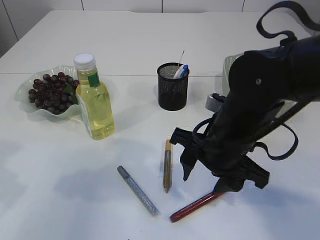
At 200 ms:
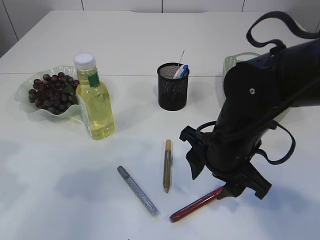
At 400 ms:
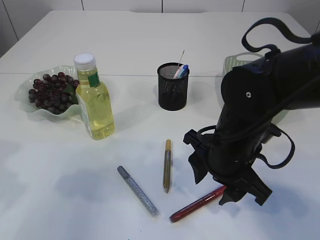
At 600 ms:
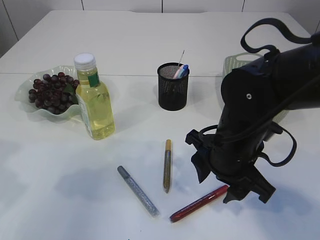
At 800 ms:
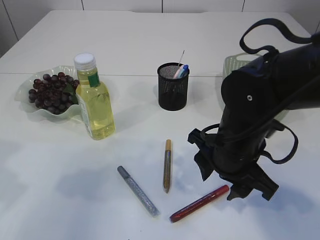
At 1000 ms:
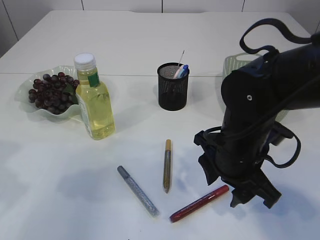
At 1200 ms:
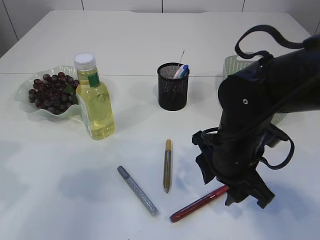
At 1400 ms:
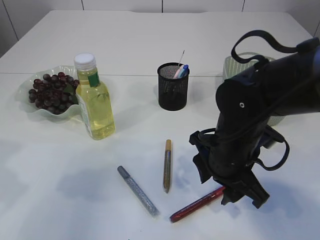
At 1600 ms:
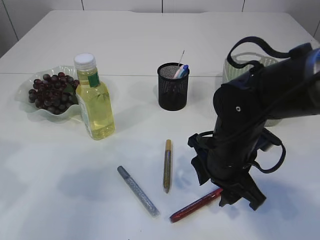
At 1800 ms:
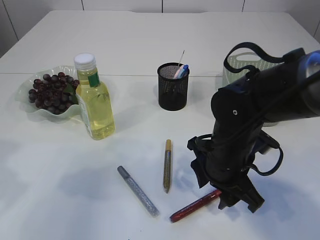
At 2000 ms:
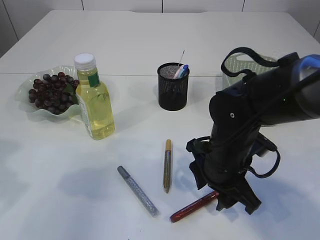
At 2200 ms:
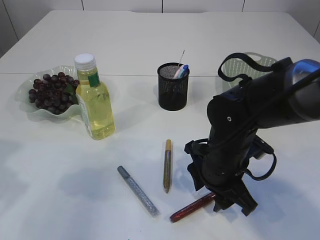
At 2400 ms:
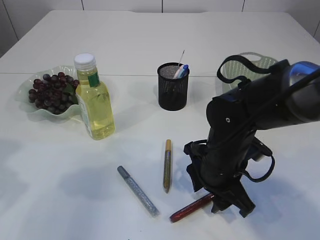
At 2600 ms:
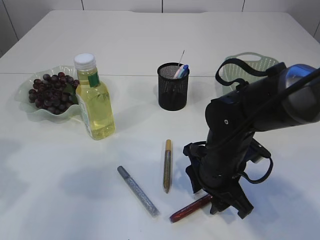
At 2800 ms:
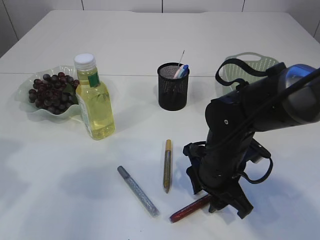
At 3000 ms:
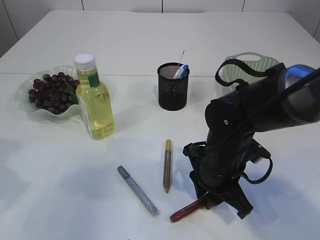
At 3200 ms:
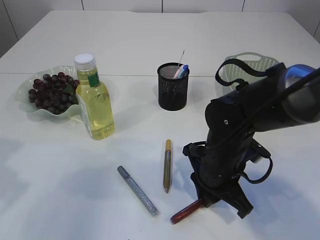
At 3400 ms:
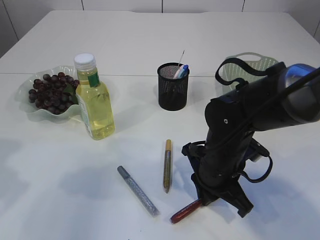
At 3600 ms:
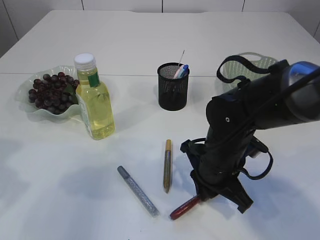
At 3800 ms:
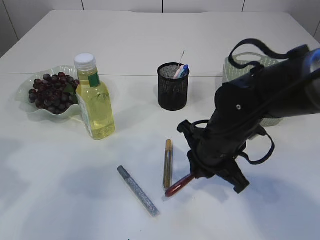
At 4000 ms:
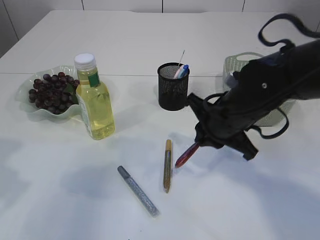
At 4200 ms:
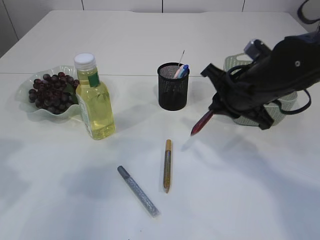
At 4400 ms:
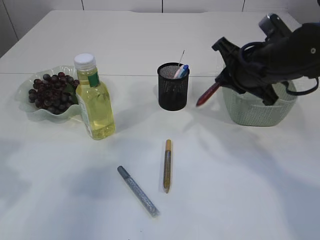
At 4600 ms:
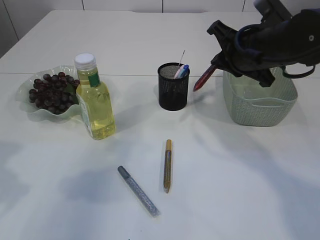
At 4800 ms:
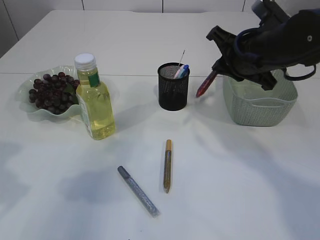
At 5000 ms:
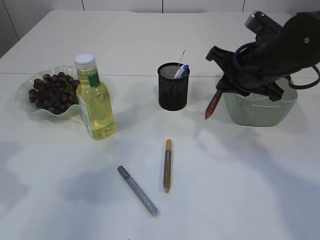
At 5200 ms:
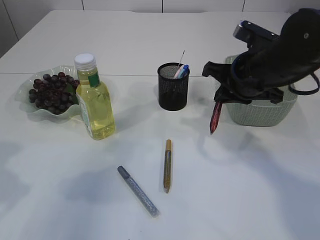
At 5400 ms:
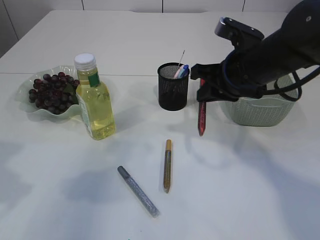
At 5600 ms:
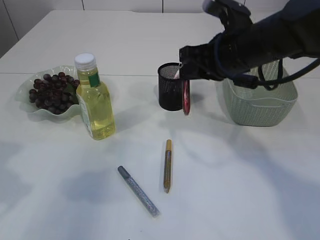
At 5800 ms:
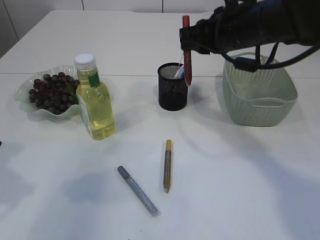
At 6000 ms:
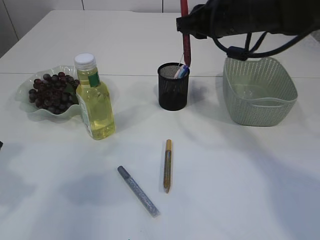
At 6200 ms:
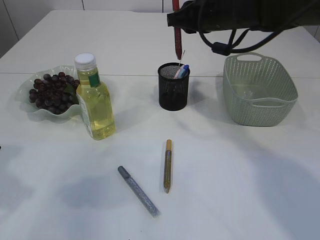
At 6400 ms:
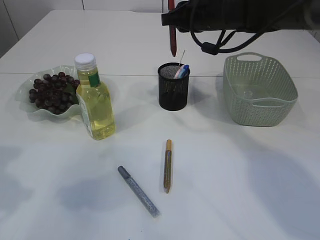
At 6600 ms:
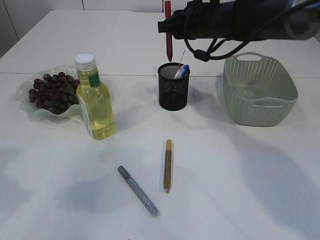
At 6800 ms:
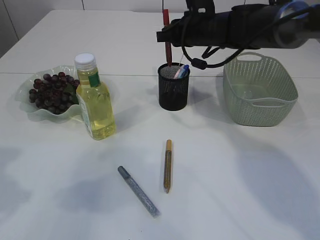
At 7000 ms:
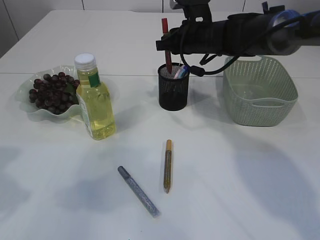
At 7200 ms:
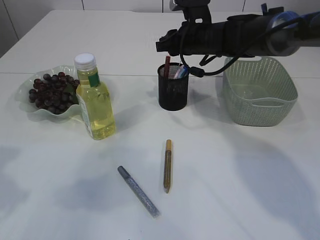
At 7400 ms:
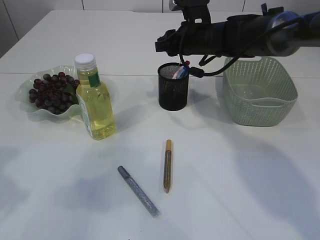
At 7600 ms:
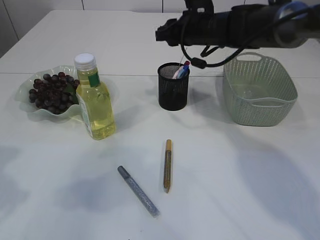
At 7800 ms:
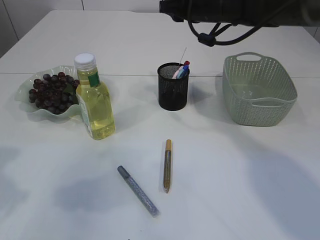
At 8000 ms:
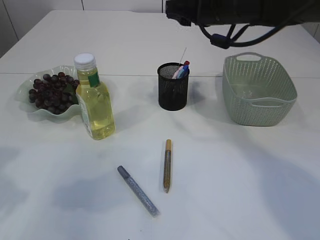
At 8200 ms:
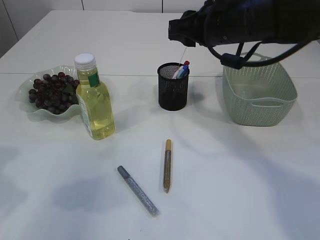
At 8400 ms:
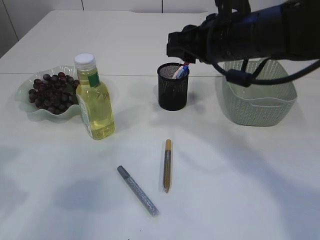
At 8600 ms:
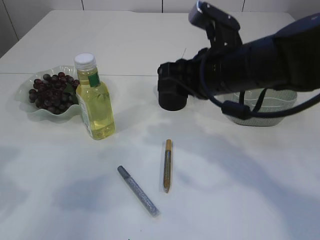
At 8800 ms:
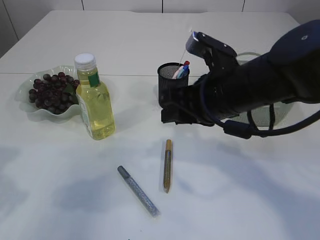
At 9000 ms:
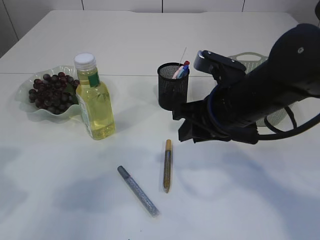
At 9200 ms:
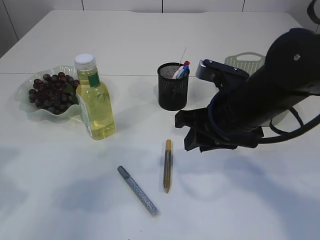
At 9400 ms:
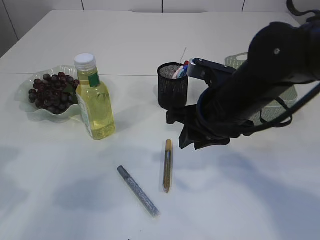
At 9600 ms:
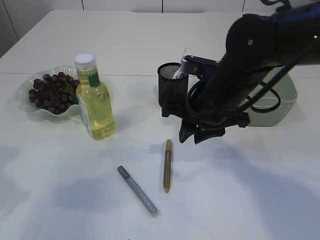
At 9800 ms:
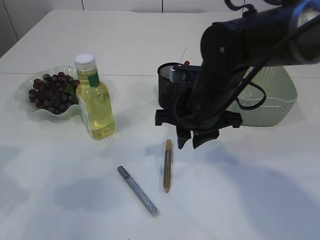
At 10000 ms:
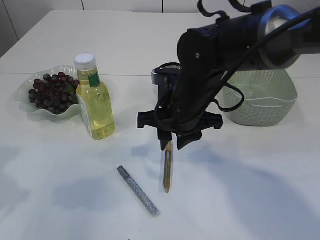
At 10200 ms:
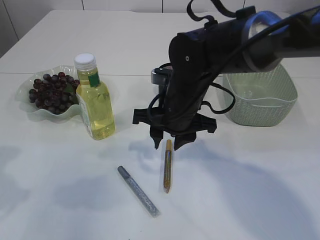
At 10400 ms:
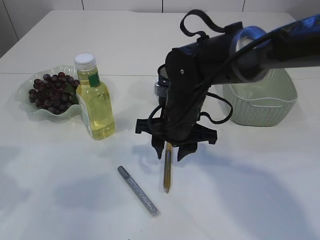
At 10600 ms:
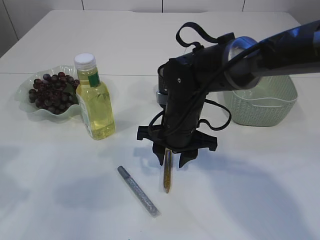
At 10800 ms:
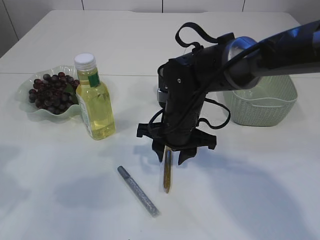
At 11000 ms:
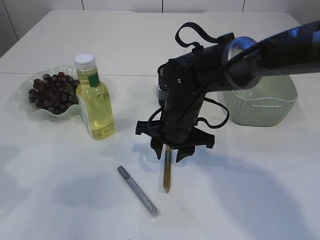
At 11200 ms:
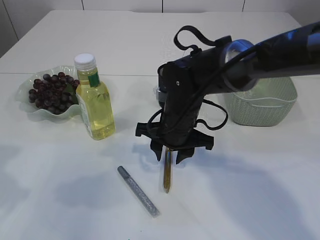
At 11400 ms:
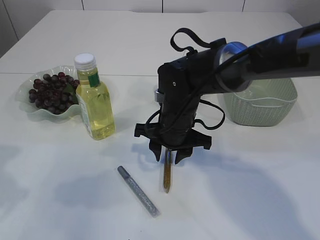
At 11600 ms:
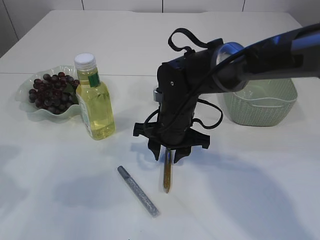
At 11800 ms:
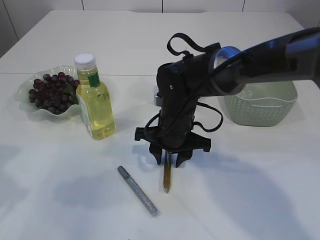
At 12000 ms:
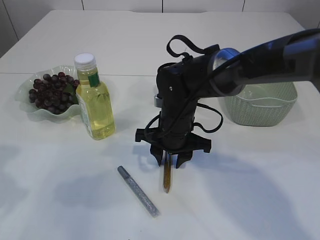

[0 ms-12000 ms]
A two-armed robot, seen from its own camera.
Step, 0 ms to 3800 ms: pick up the red glue.
Step, 4000 ms to 7600 ms: place the red glue into the pen holder.
1600 ms to 3000 ms: There are only small adjustments of the grippers.
3000 ms to 4400 ms: The right gripper is displaced upward, to the right and forward by roughly 15 cm.
4400 ms to 6000 ms: The right gripper is displaced upward by some 5 cm.
6000 ms to 7600 ms: The right gripper heads forward and downward, covering about 10 cm.
7600 ms to 9000 ms: The right gripper moves backward, about 20 cm.
9000 ms to 10400 ms: The right gripper heads to the left, forward and downward, covering roughly 10 cm.
10400 ms to 12000 ms: The grippers move only a little.

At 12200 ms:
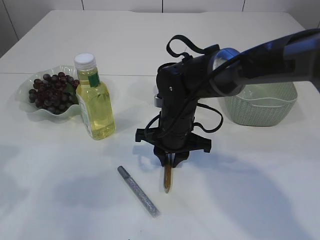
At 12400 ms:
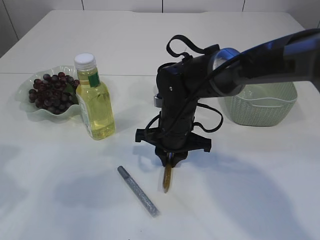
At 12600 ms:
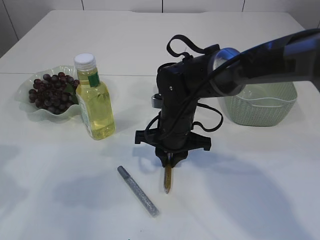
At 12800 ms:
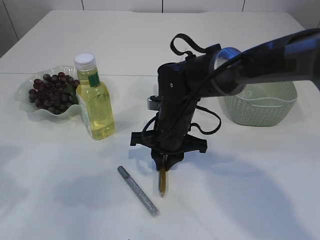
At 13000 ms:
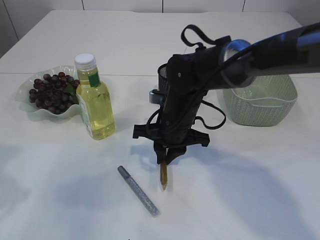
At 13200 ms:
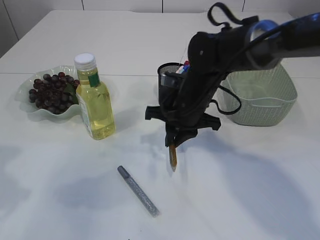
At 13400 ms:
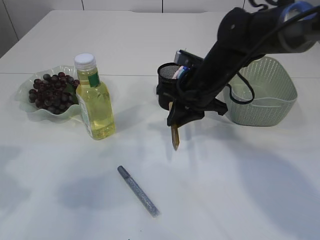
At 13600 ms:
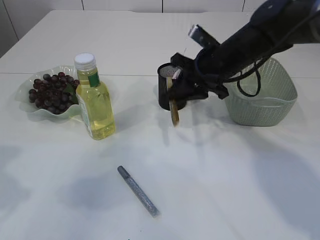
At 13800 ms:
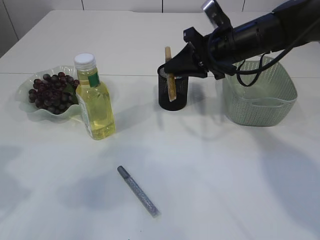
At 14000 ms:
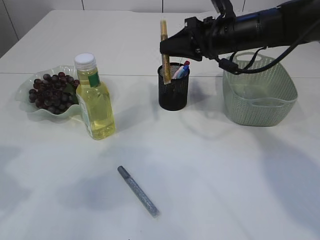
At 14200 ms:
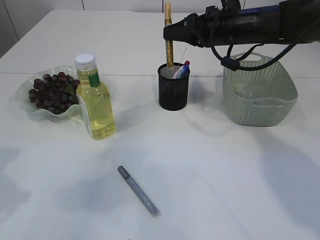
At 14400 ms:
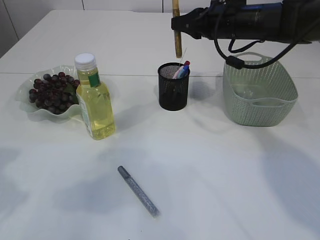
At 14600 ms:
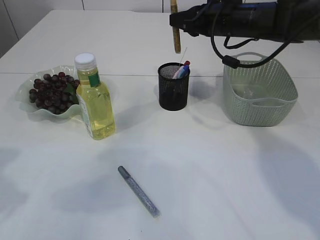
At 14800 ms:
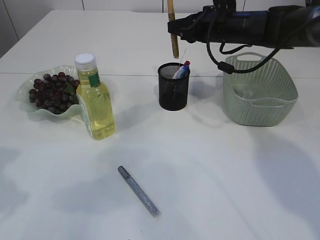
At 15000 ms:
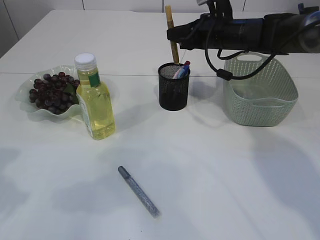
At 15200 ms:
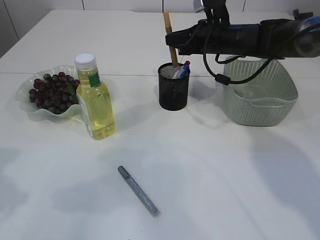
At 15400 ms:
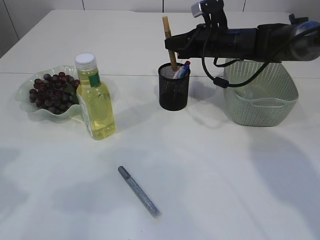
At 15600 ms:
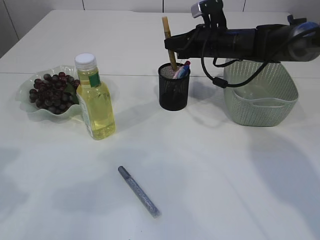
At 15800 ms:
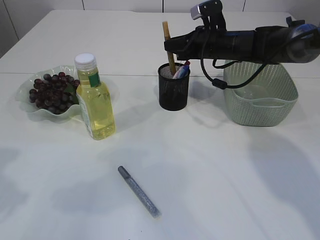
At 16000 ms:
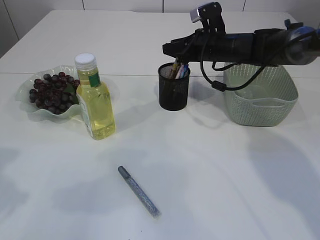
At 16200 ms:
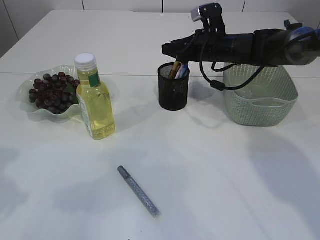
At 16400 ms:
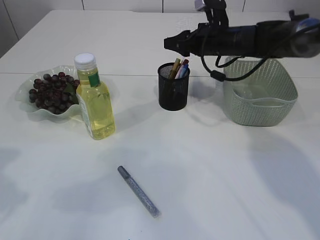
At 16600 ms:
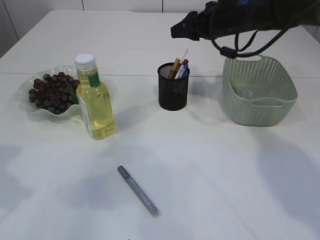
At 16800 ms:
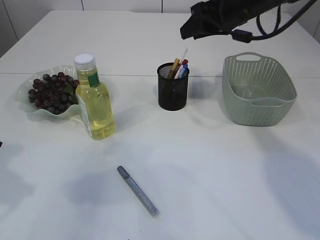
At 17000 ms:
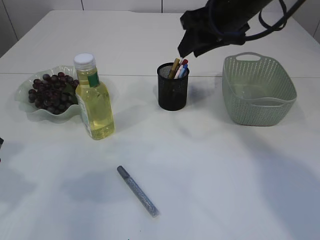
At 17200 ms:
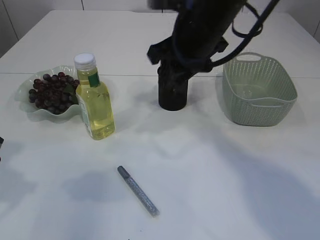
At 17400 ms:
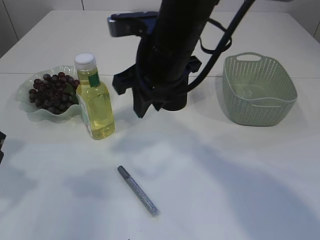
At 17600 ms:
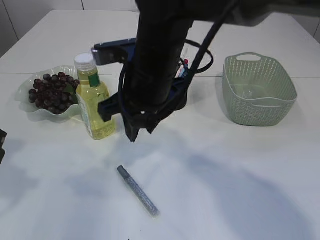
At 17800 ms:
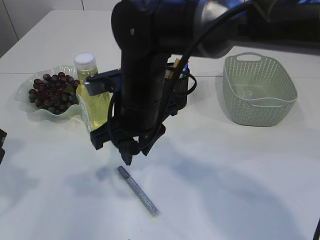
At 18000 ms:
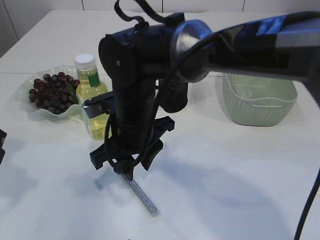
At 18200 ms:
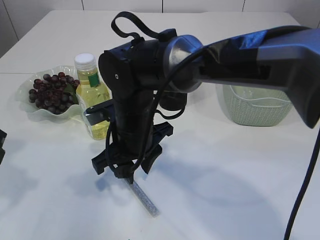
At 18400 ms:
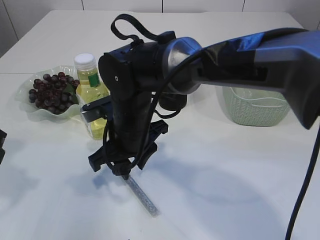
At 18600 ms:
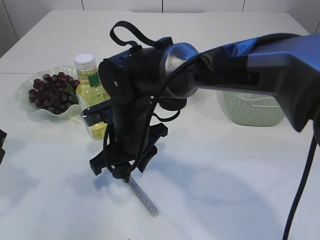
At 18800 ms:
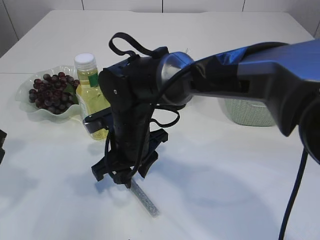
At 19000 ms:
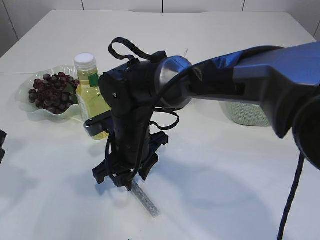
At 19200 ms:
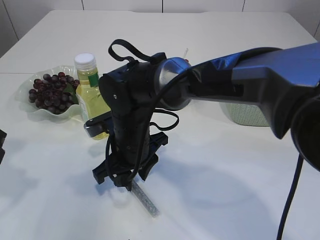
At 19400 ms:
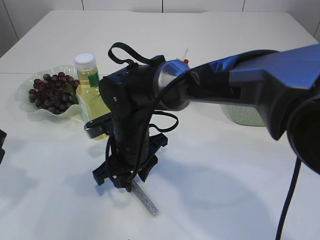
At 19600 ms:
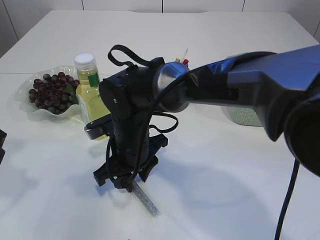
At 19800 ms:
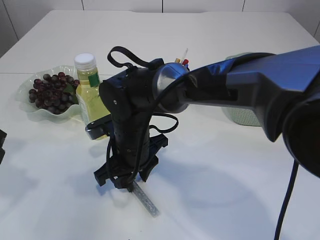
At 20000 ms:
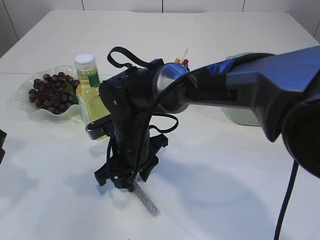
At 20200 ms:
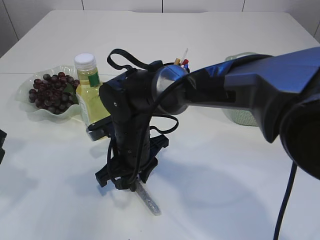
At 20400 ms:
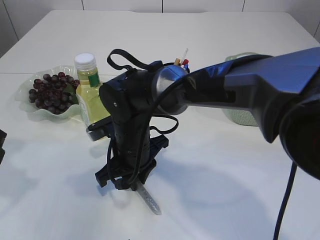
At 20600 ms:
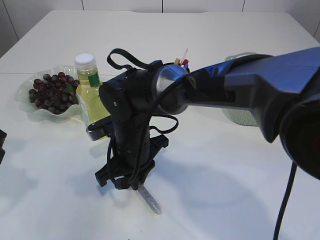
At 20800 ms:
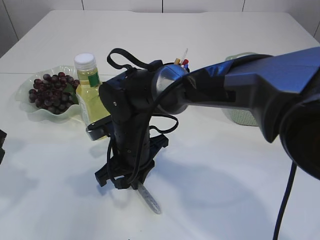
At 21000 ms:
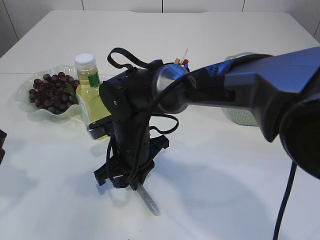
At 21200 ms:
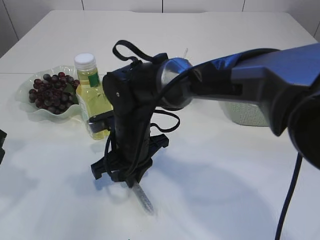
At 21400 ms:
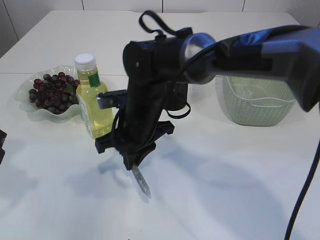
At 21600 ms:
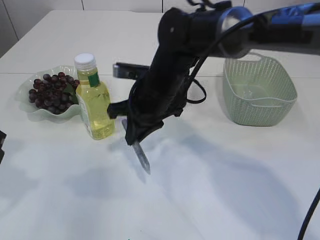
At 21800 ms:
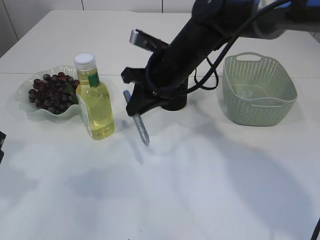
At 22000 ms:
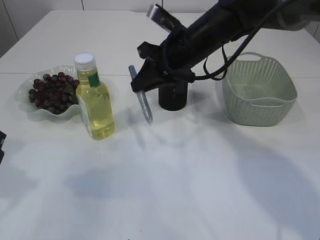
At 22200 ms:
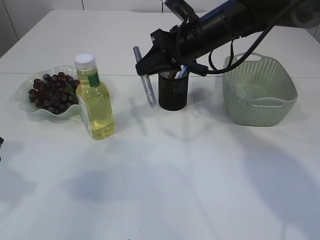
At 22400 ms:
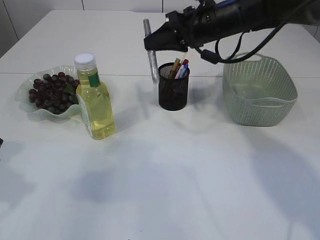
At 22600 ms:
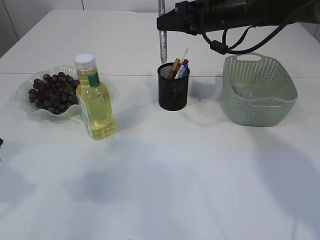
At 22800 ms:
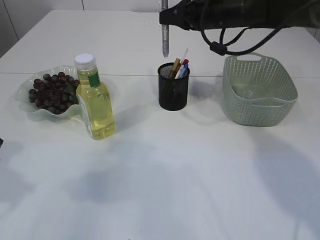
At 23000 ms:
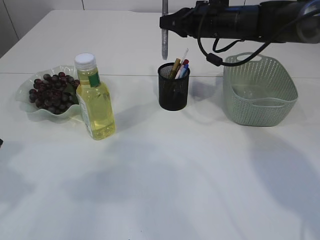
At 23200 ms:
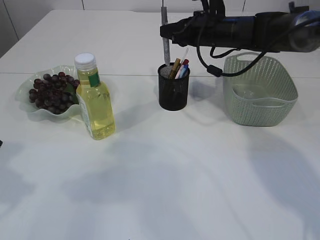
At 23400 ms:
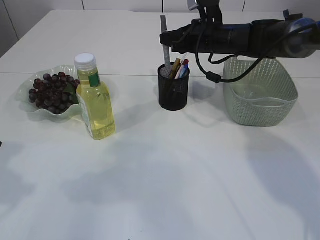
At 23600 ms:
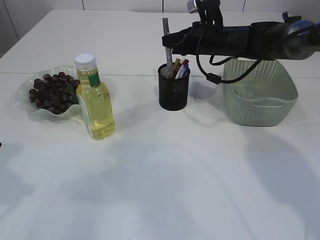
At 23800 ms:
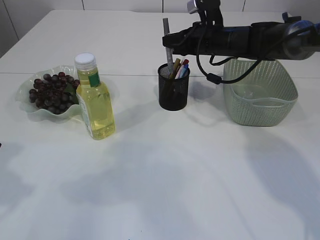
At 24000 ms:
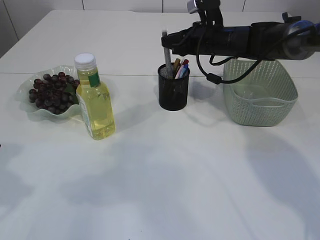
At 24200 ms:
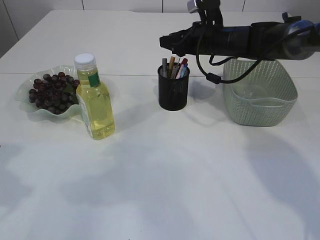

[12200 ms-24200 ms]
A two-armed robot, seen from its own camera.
Step, 13400 ms to 16600 ms: place the yellow glue into the pen holder.
Step, 16800 ms to 21600 ms: pick up the silver glue.
12200 ms to 13800 ms: The right gripper travels upward, to the right and forward by roughly 15 cm.
13800 ms to 15200 ms: The right gripper moves forward, roughly 5 cm.
15200 ms to 16600 ms: The grippers move only a little.
16600 ms to 18200 ms: The right gripper shifts approximately 25 cm to the left, backward and downward.
19800 ms to 21200 ms: The right gripper closes its fingers.
21200 ms to 22600 ms: The right gripper travels to the right, upward and forward by approximately 25 cm.
22600 ms to 24200 ms: The right gripper is displaced downward by approximately 5 cm, and opens up.
